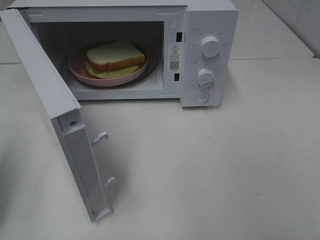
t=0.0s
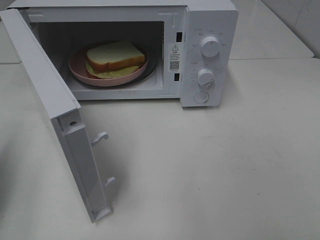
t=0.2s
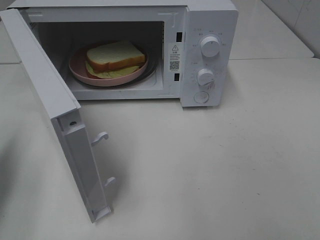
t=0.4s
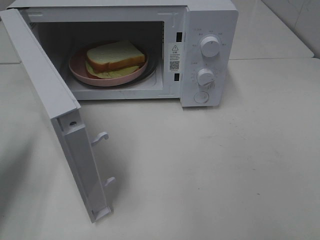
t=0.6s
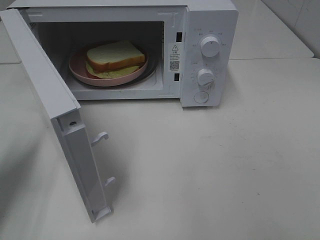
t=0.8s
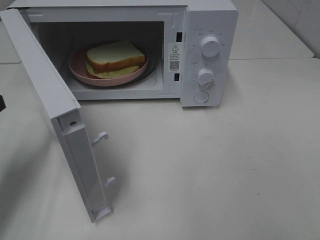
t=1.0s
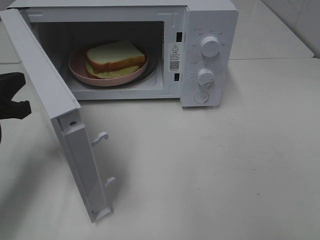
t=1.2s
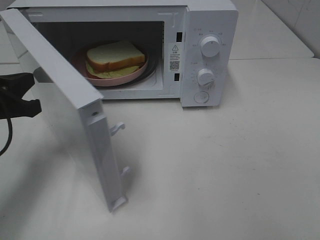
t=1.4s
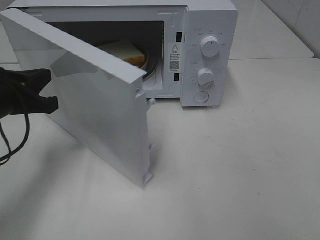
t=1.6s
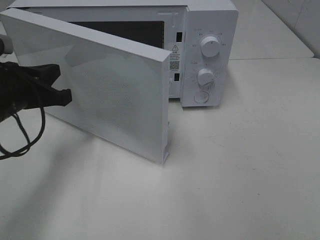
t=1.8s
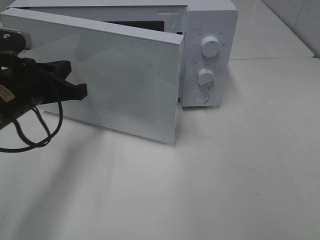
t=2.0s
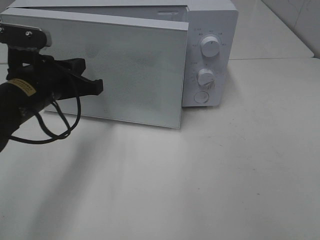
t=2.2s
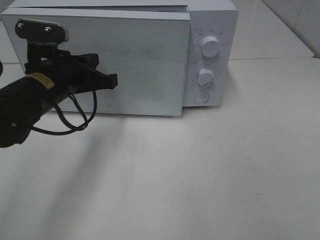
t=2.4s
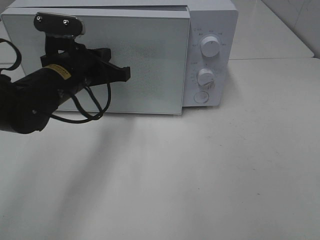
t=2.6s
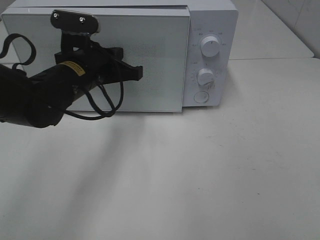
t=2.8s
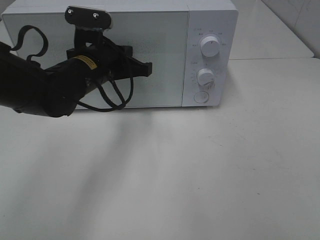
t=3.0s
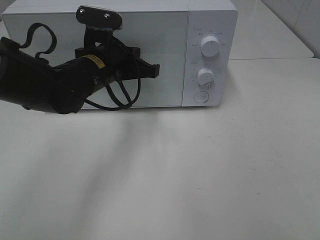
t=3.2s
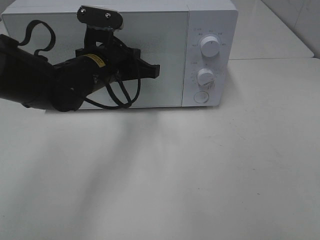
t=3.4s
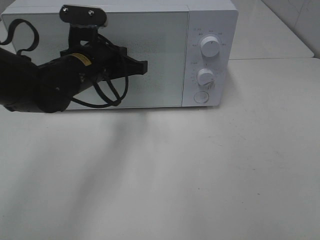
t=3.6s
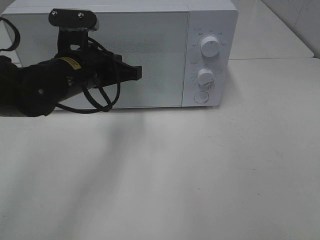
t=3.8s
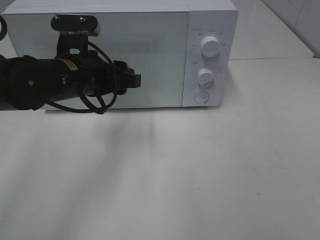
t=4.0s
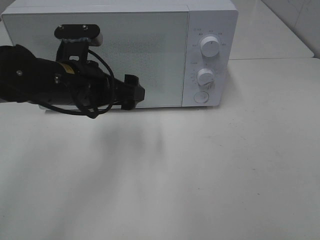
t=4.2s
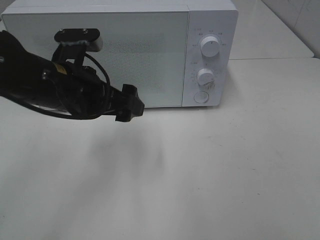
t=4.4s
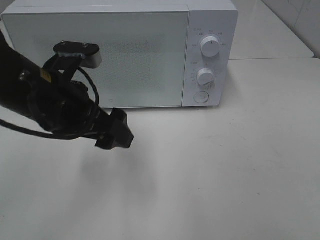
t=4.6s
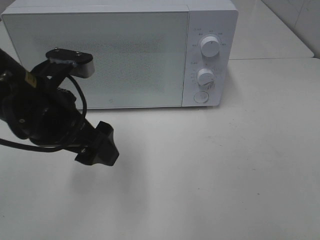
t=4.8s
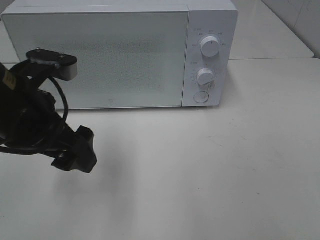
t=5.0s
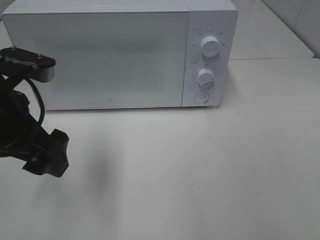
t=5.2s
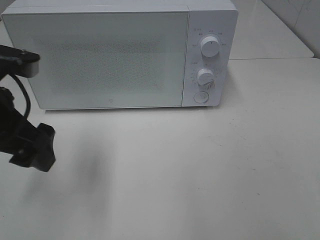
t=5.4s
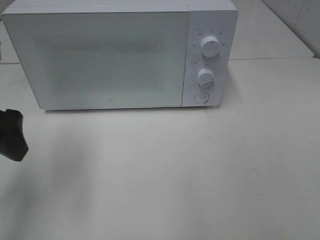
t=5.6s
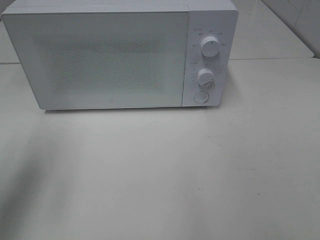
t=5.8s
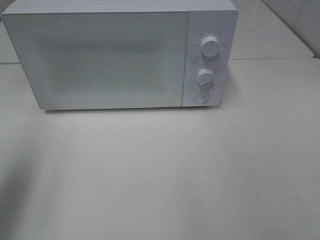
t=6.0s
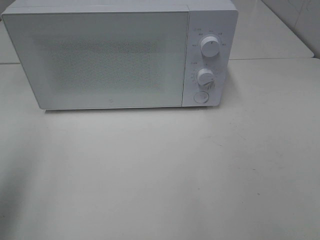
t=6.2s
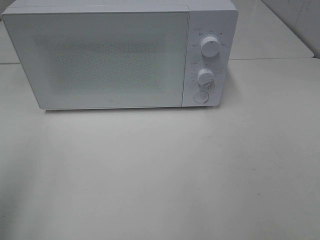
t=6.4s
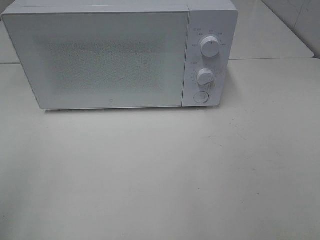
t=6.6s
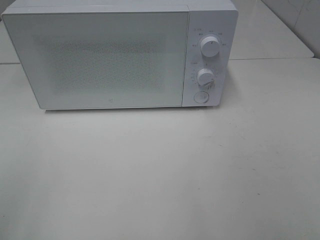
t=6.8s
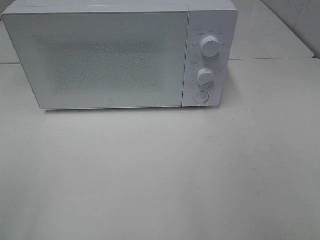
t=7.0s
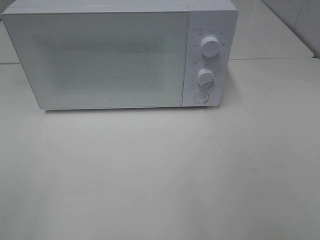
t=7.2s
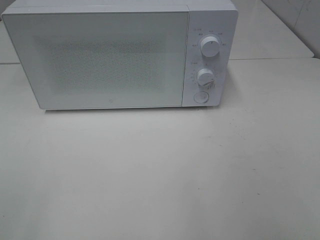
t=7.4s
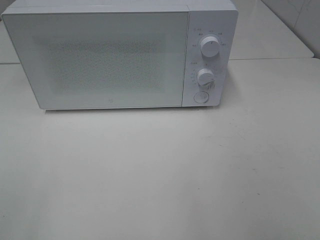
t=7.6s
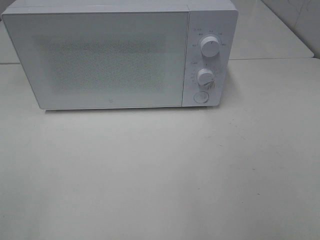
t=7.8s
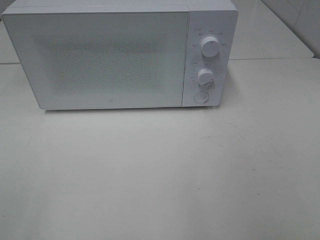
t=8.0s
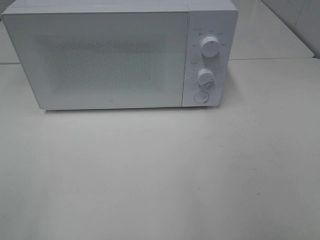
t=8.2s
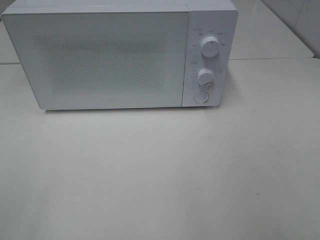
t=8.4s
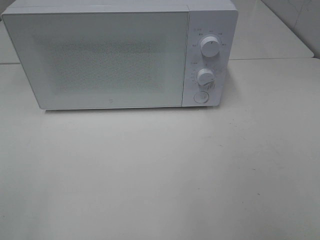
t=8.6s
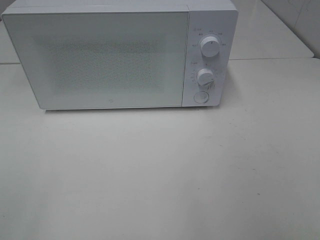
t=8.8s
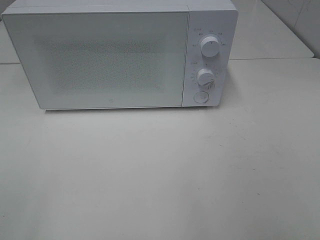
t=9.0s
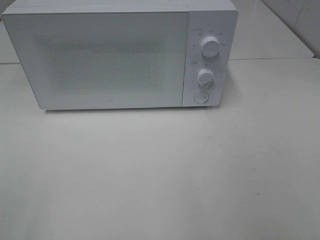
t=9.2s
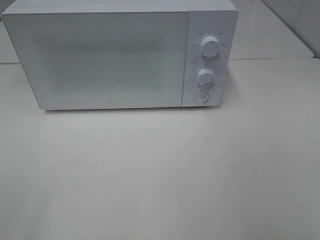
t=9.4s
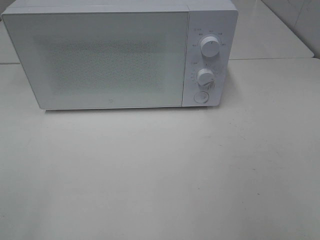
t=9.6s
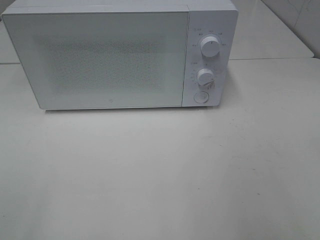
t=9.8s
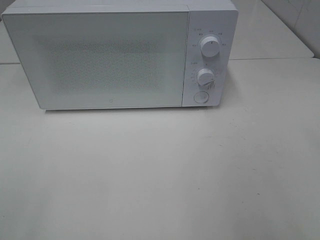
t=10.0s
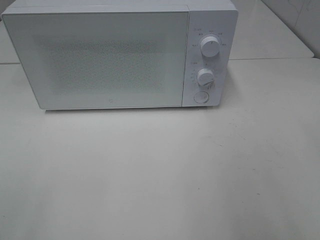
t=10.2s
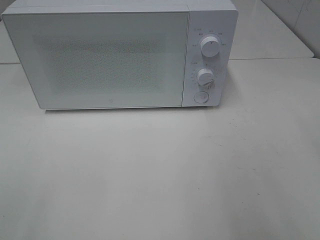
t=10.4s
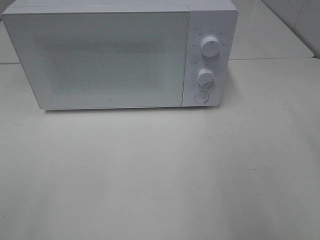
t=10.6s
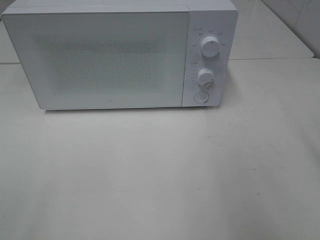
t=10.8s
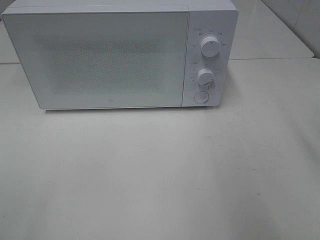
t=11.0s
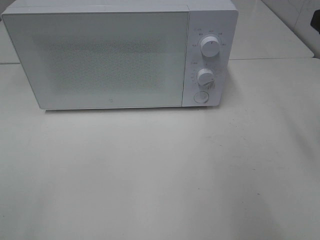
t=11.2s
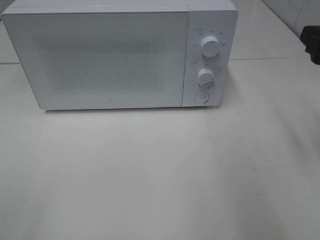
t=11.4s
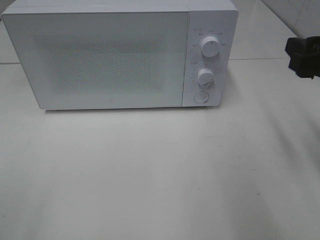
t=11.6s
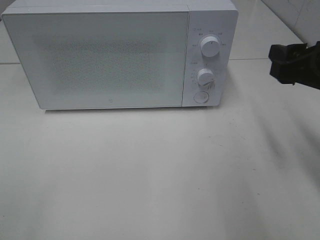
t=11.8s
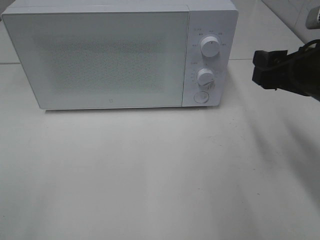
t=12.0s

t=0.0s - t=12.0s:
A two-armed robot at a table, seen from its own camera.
Task of the whole recording: Heat Sandwich.
Step, t=0.0s - t=4.4s: Left hand: close the microwave door.
t=0.0s - t=1.6s: The left gripper travels to the right, forward and downward by approximately 15 cm.
t=1.6s - t=3.0s: The left gripper heads to the right and forward, covering roughly 15 cm.
t=3.0s - t=4.4s: The left gripper travels backward by approximately 10 cm, and opens its fingers.
t=4.4s - t=6.0s: The left gripper moves to the left, upward and backward, about 25 cm.
t=6.0s - t=7.6s: The left gripper heads backward, covering approximately 20 cm.
t=7.6s - t=9.0s: Both grippers stay put.
t=10.4s - t=12.0s: The right gripper shifts about 15 cm forward, downward and to the left.

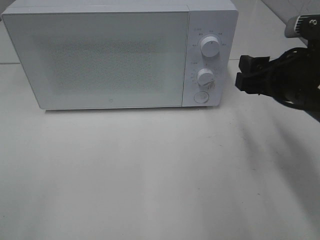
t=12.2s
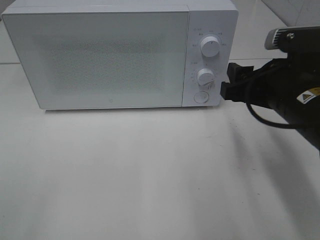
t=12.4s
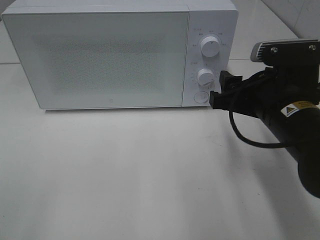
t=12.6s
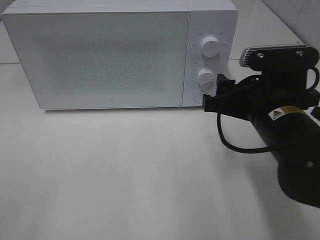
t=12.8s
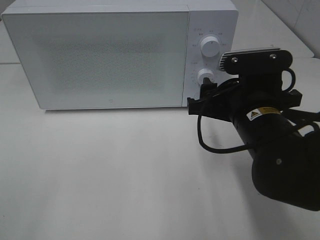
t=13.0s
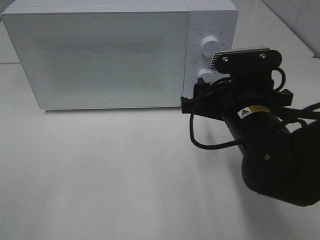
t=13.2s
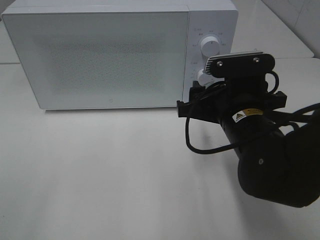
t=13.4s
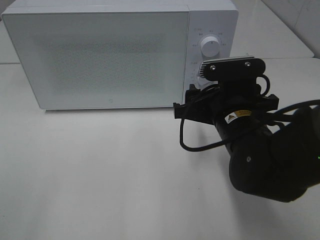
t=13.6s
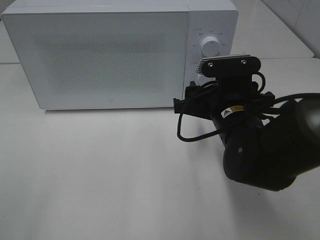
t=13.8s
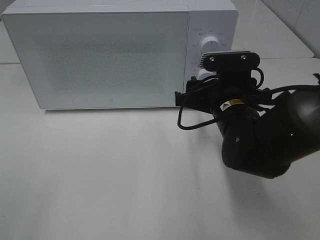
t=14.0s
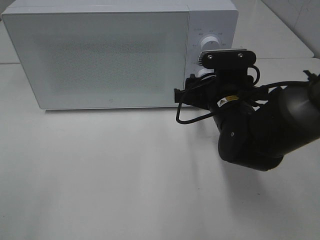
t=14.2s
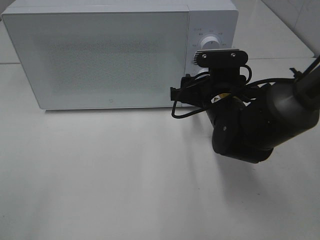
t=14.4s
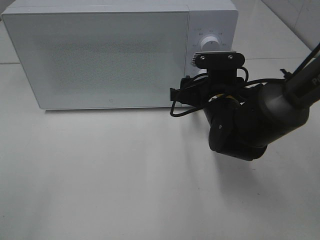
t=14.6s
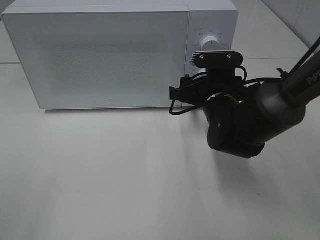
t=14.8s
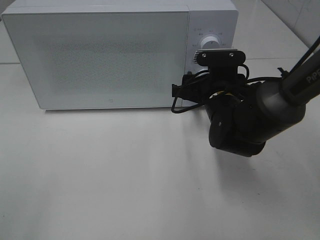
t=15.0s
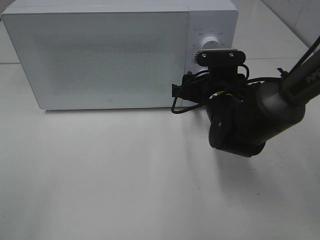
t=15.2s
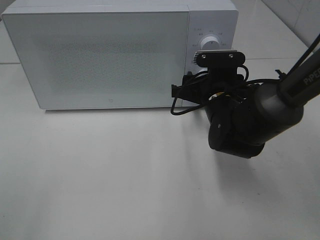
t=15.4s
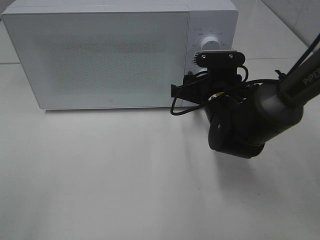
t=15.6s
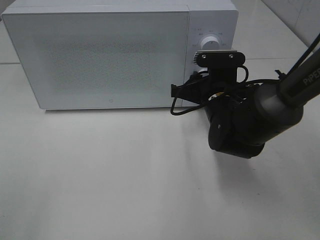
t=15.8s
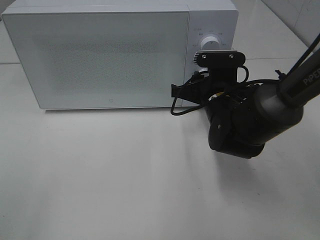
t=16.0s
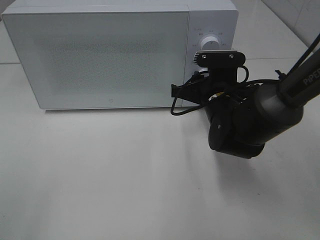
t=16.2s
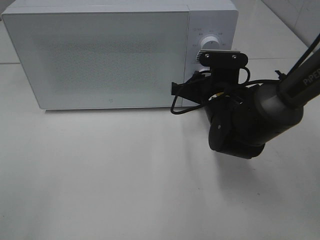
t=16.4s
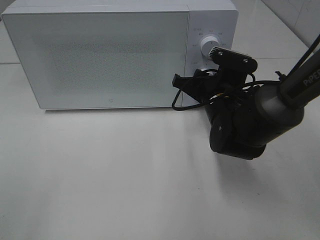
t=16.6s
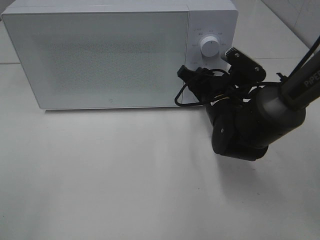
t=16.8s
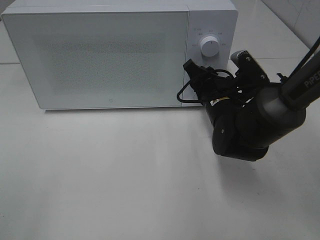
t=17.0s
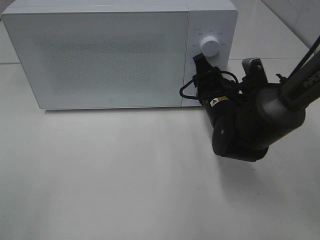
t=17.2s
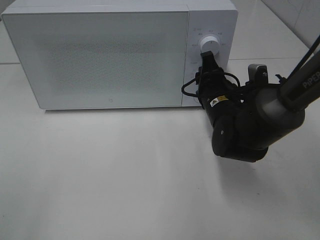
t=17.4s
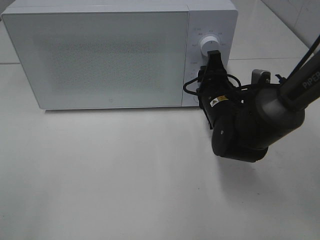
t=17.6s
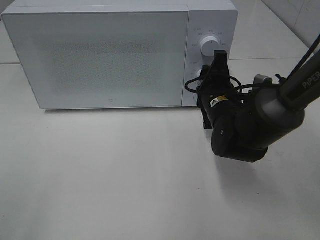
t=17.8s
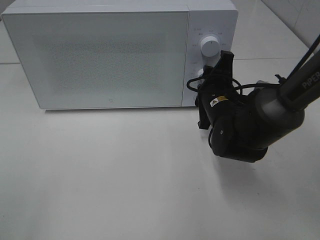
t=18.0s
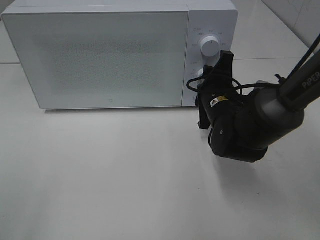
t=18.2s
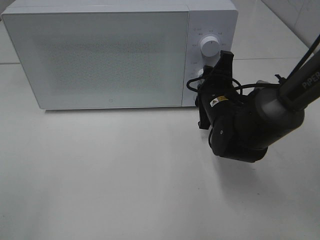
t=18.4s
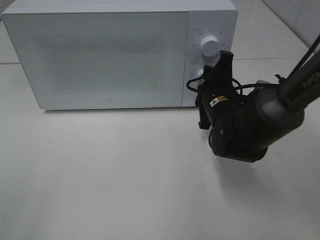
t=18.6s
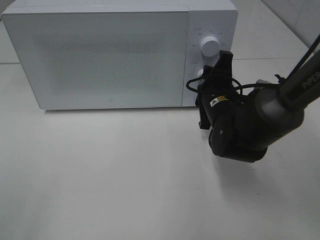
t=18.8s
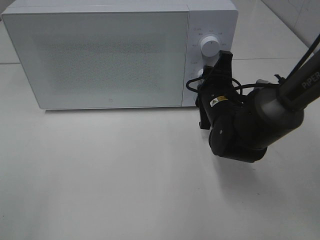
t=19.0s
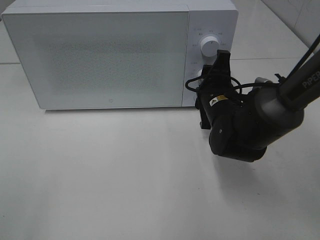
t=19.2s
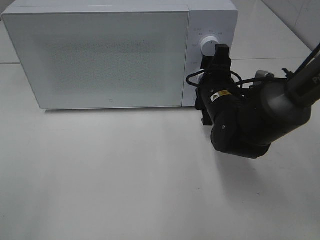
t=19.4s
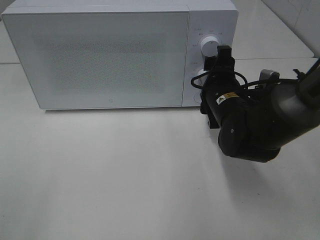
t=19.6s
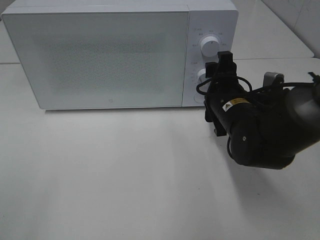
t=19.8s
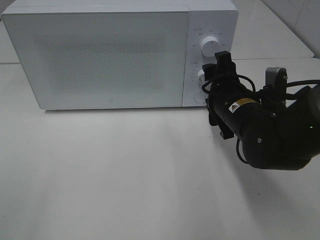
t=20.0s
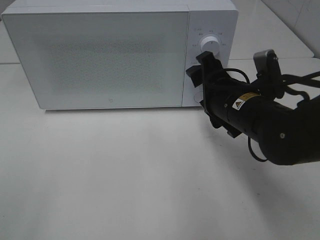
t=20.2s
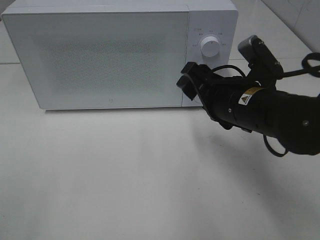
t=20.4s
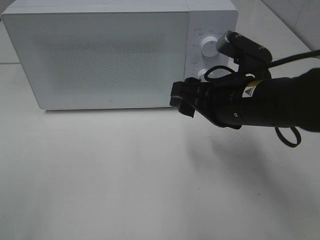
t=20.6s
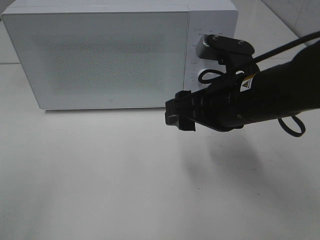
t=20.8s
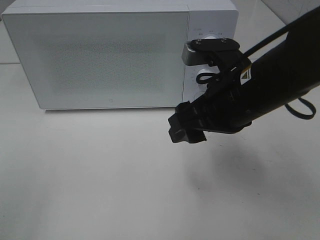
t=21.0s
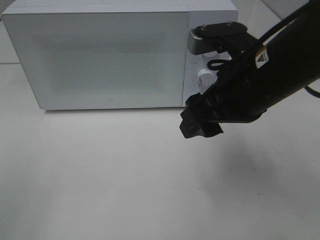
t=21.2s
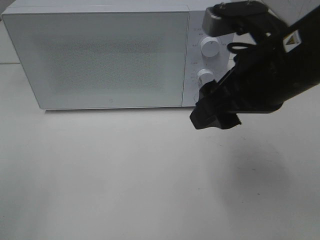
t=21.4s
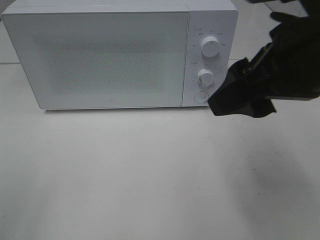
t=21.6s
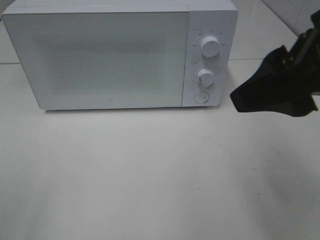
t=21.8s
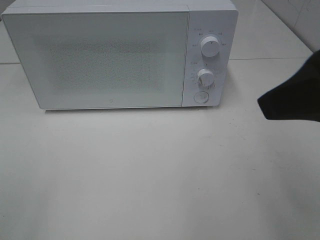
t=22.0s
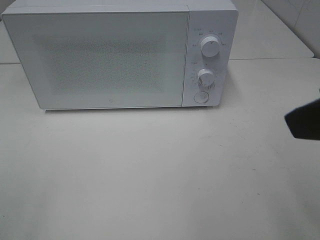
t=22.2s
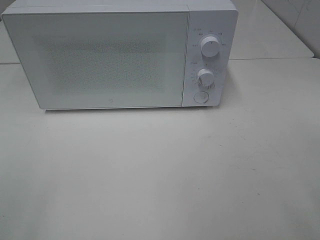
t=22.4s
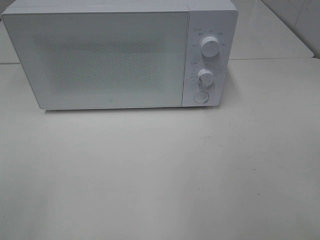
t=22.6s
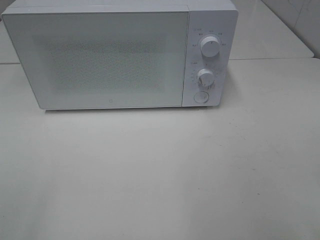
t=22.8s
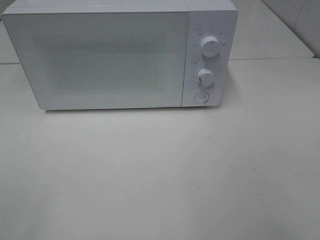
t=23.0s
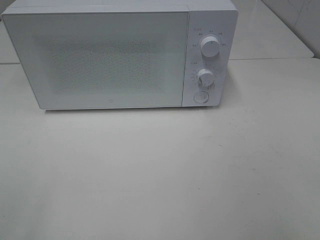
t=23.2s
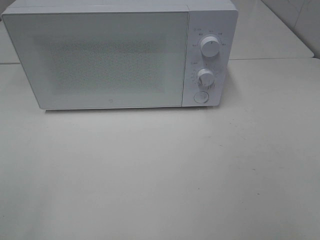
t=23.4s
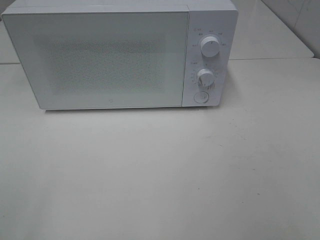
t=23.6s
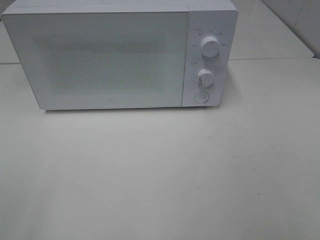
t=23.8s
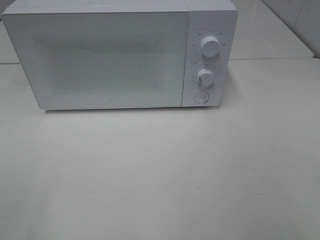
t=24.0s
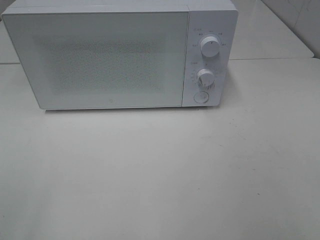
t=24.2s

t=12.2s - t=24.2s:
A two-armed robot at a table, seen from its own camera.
Task of the whole recording: Heat Sandwich.
Step, t=12.2s - t=19.8s: Right hand: twist timer button.
t=12.2s - t=13.8s: The right gripper is displaced to the left and downward by approximately 10 cm.
t=13.8s - t=15.2s: The right gripper moves forward, about 5 cm.
t=18.2s - t=19.8s: The grippers make only small movements.
t=19.8s - t=21.2s: The right gripper goes approximately 15 cm upward and backward.
t=21.2s - t=22.6s: The right gripper is displaced backward and to the right by roughly 20 cm.
